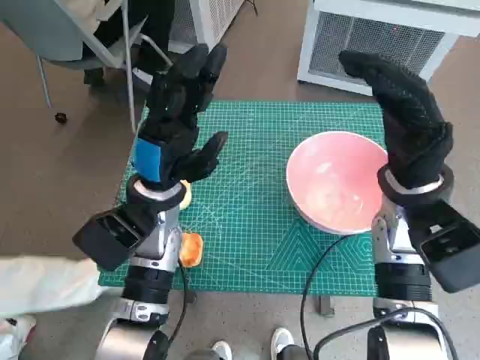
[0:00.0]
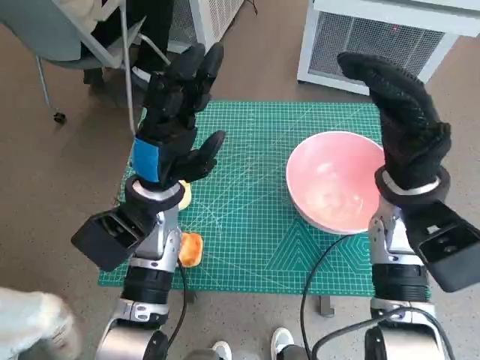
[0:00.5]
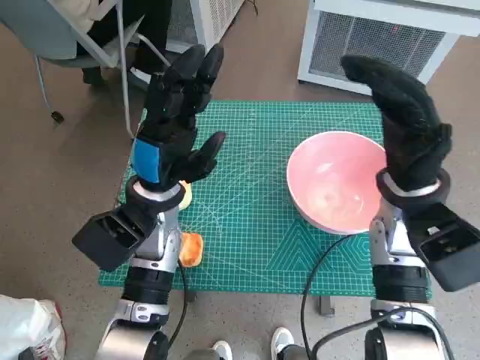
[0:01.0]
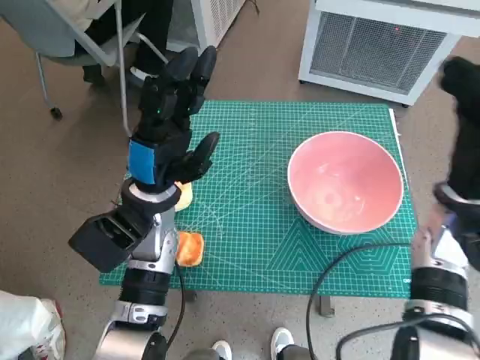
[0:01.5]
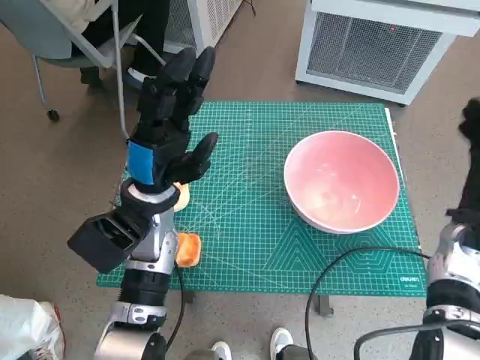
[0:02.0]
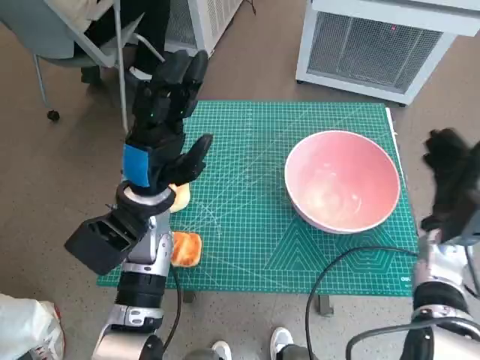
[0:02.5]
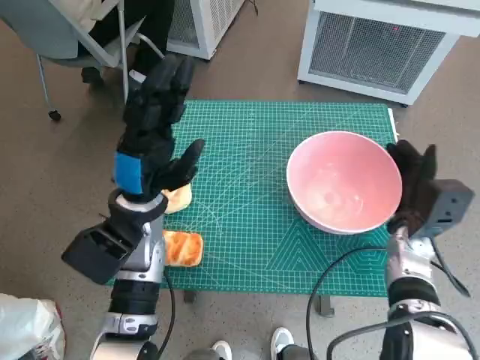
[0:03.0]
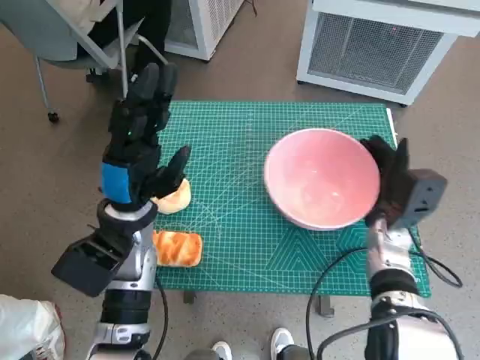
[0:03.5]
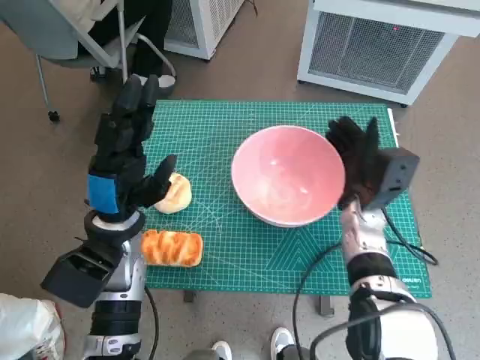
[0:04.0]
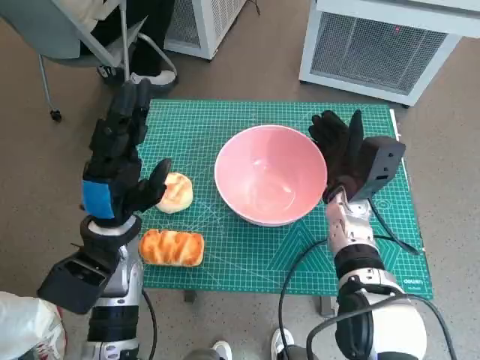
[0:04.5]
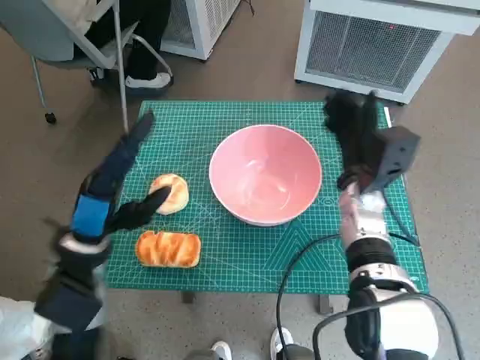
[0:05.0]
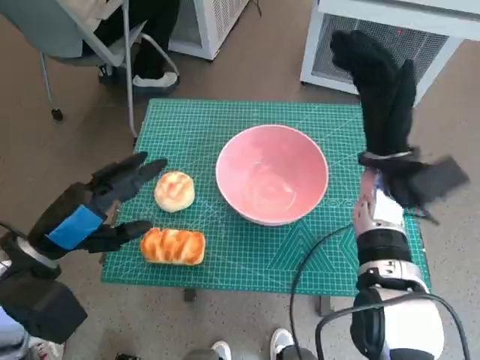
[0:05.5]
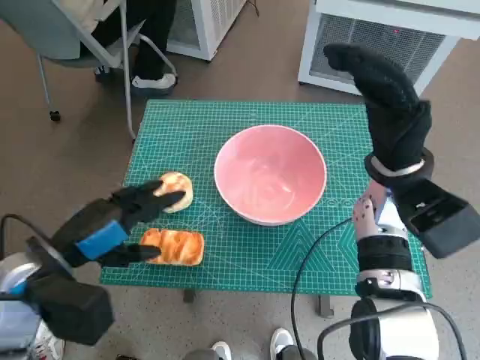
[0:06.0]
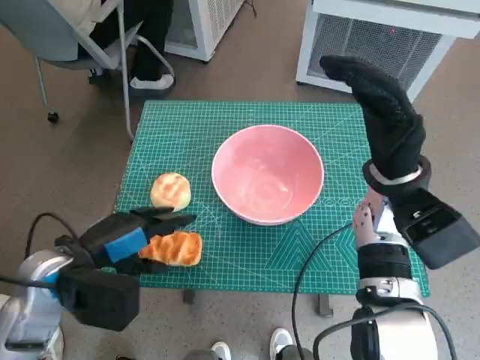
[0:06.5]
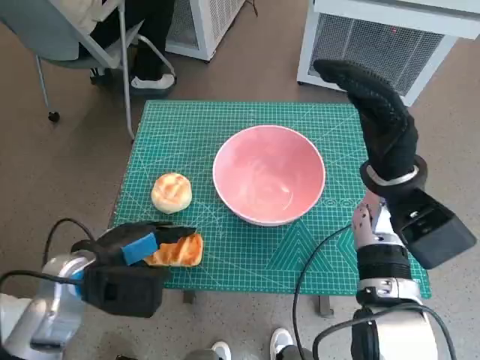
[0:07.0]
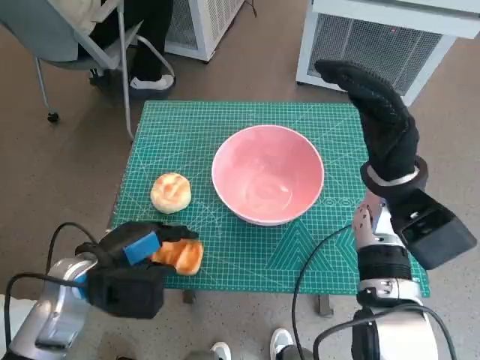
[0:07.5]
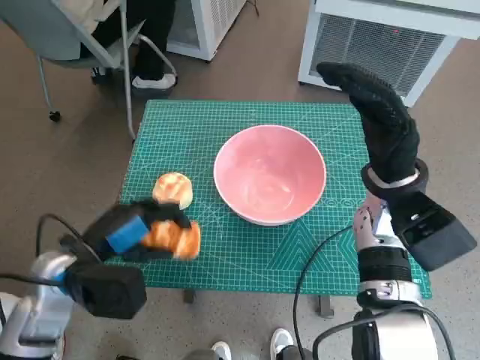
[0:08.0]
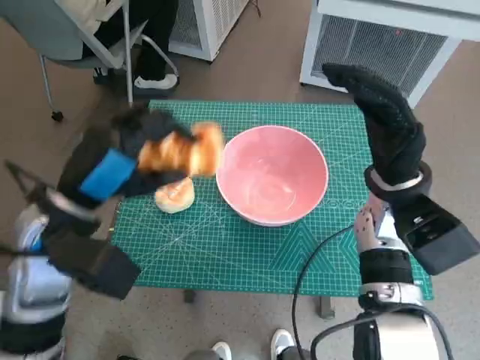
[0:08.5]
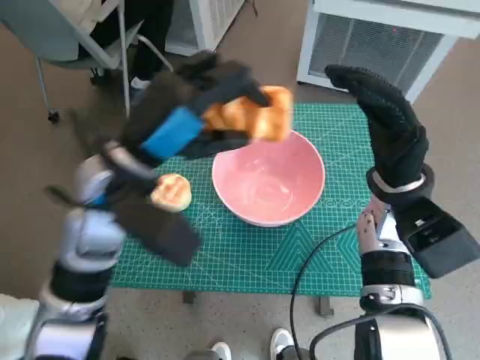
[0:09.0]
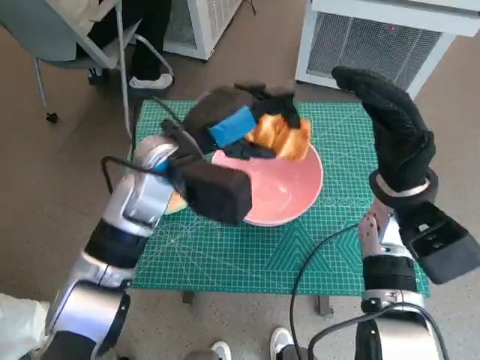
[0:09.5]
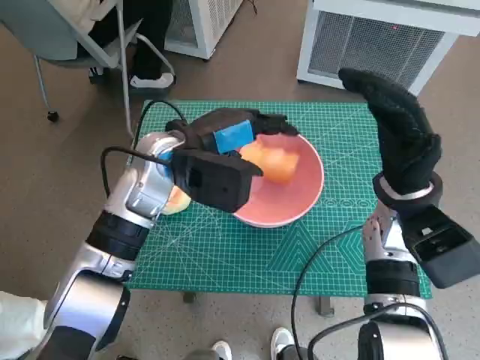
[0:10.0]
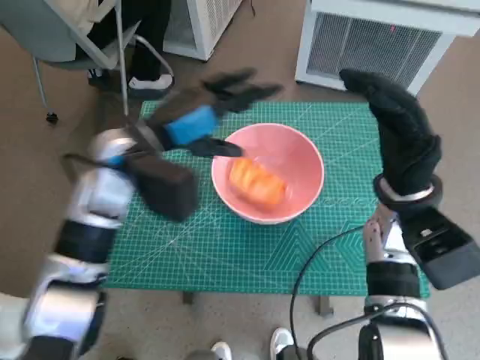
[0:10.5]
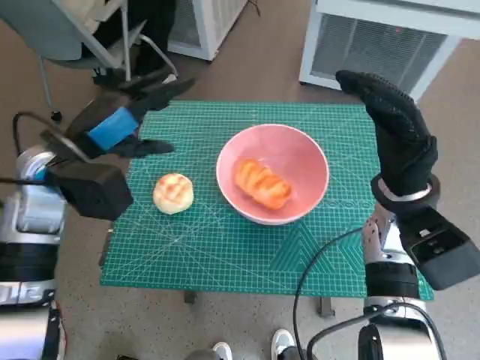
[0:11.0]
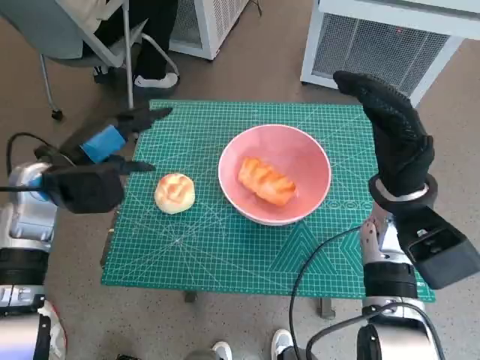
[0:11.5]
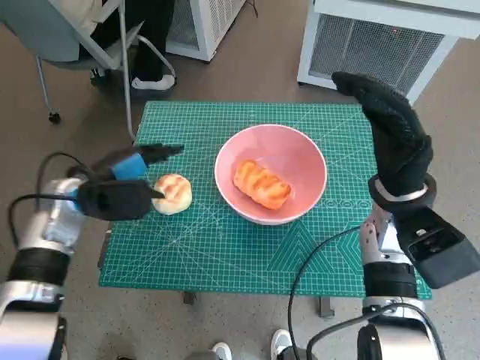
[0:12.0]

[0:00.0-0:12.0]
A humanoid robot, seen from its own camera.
Task of the whole recording: Push the bowl to the center of the table and put the bread into the bowl.
Step, 0:00.0 to 0:04.5: Move the pink bowl to the center of table with right hand.
Step, 0:05.0 to 0:07.5: Grasp the long bread with left hand.
Step, 0:08.0 to 0:10.0: Place the long bread in pink bowl with left hand.
0:02.0 to 0:04.0: The right hand shifts some 10 cm to the left. Meanwhile the left hand ends up roughly 5 cm from where it was.
0:04.0 to 0:06.0: The left hand is displaced to the left and backward by approximately 10 cm. Meanwhile the right hand goes roughly 10 cm upward.
0:08.0 to 0:10.0: The left hand heads forward, to the right and upward, covering about 20 cm.
0:10.0 to 0:12.0: The left hand goes about 15 cm to the left and downward.

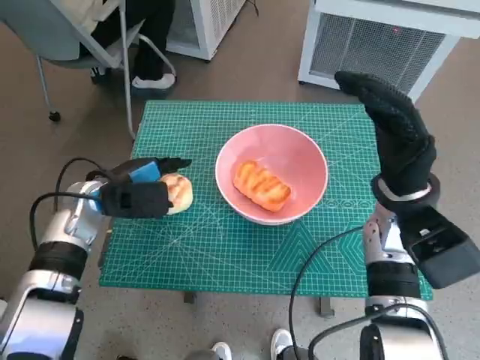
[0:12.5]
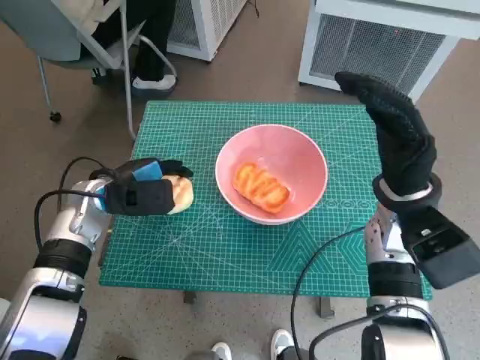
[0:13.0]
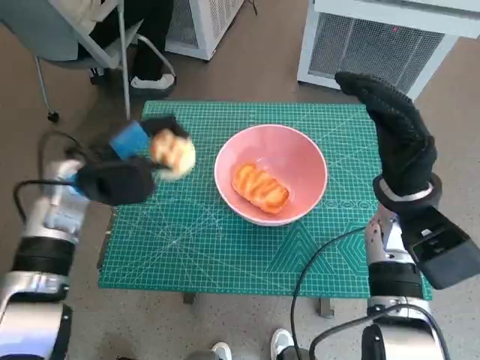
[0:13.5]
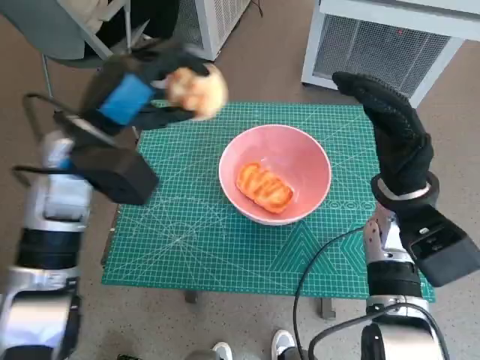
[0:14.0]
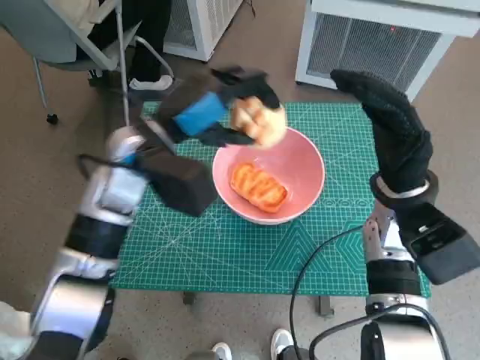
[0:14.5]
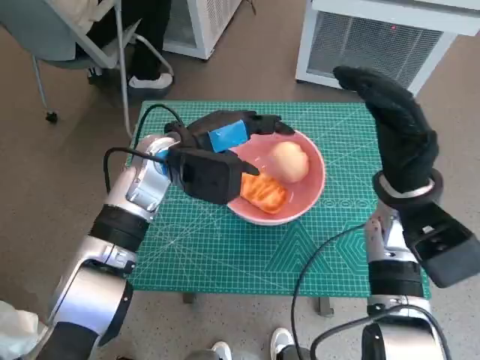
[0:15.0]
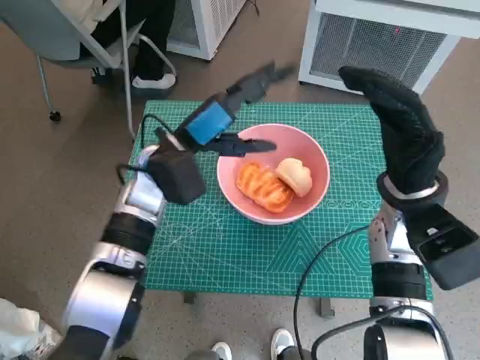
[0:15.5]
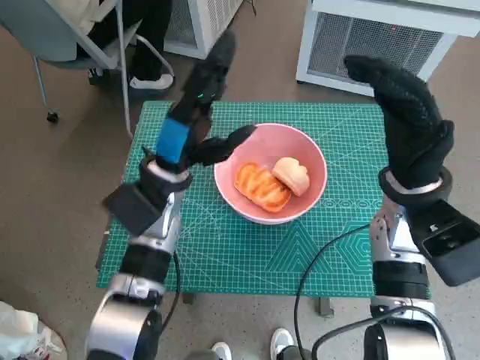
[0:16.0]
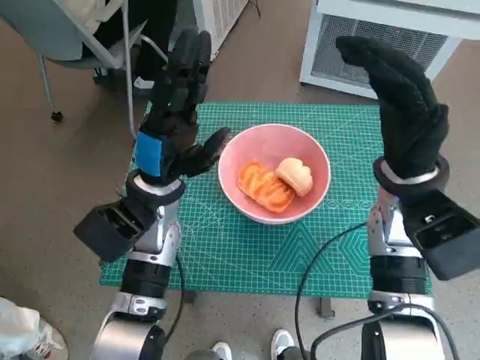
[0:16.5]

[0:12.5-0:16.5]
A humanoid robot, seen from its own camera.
Task of the whole recording: Push the bowl to the center of the table and put the bread into the bowl.
Step, 0:13.5 to 0:15.0: Place the round bread in pink bowl with left hand.
0:12.5 to 0:14.5: The left hand travels upward and to the right by roughly 15 cm.
0:14.5 to 0:16.5: The left hand is displaced downward by approximately 5 cm.

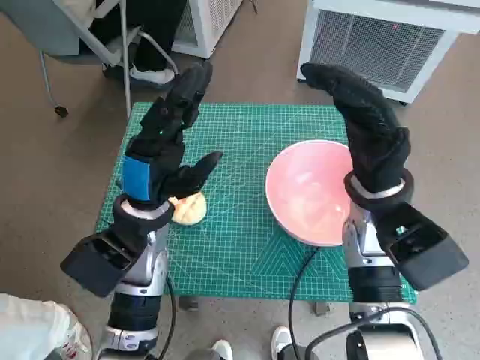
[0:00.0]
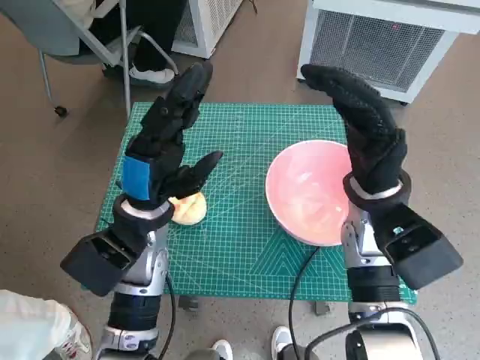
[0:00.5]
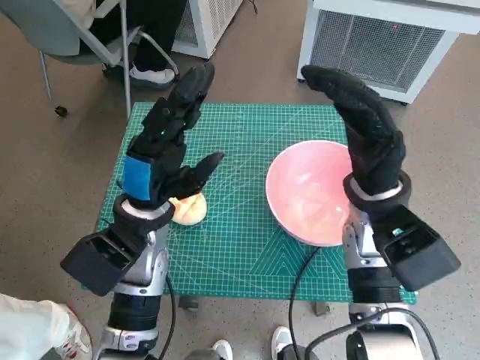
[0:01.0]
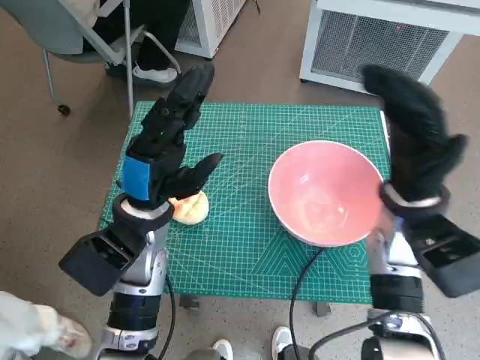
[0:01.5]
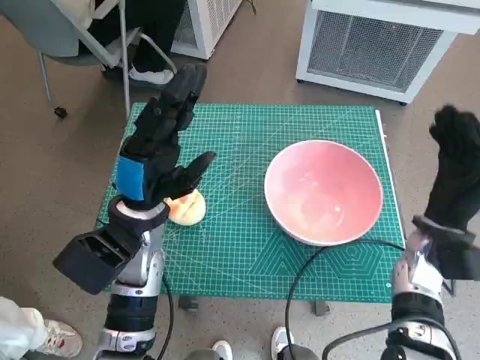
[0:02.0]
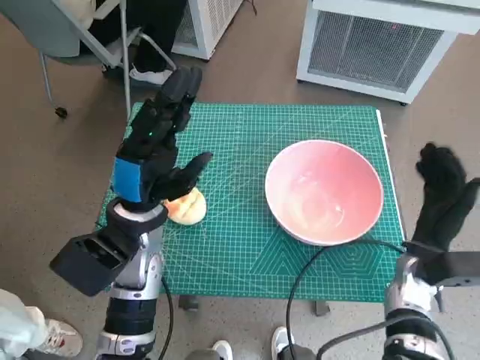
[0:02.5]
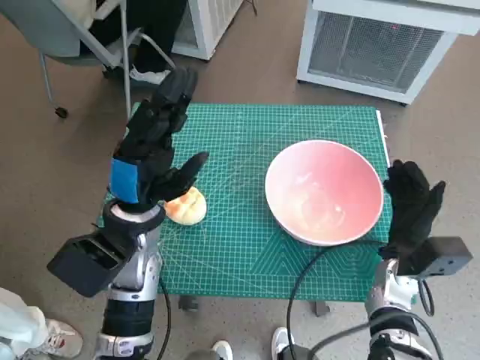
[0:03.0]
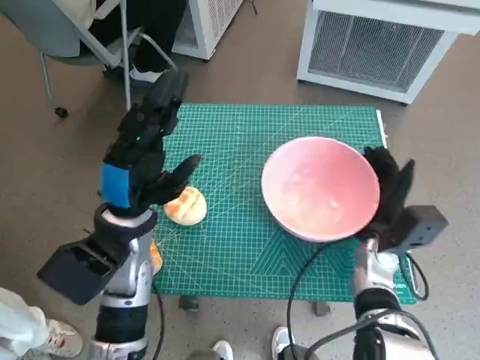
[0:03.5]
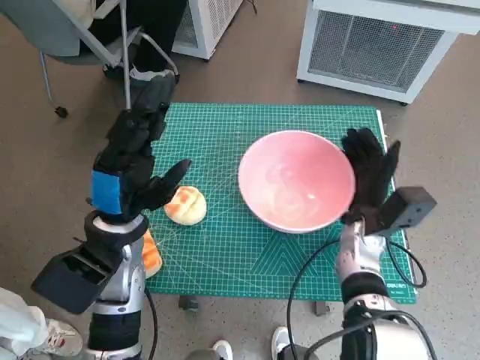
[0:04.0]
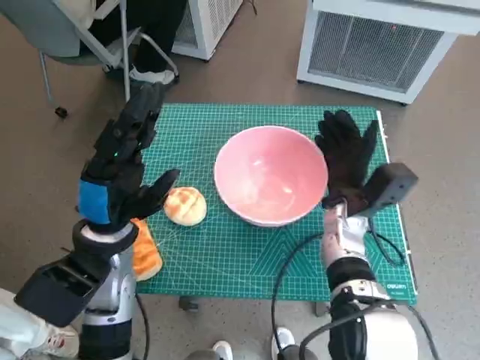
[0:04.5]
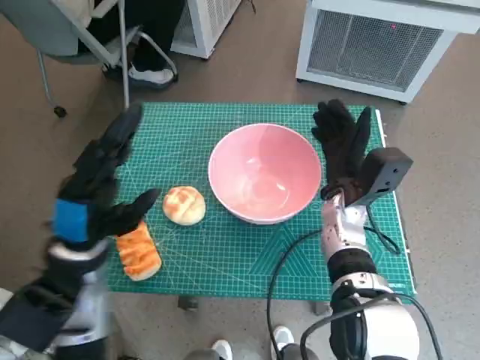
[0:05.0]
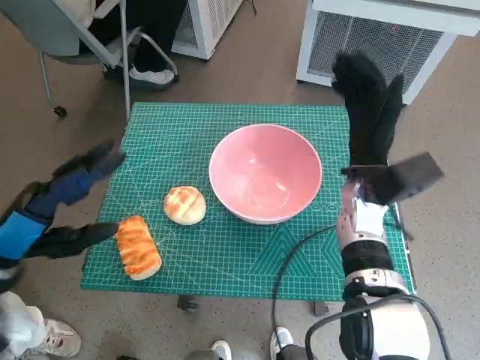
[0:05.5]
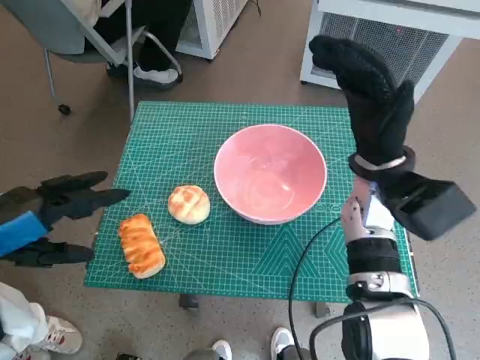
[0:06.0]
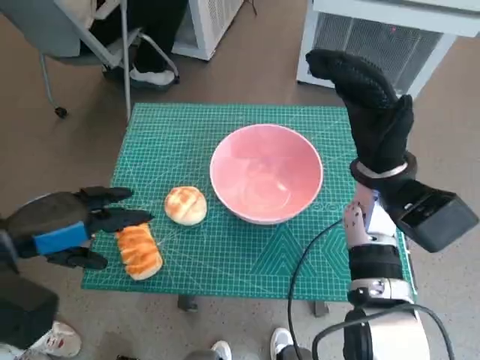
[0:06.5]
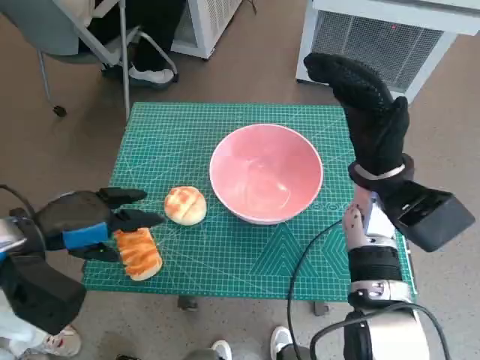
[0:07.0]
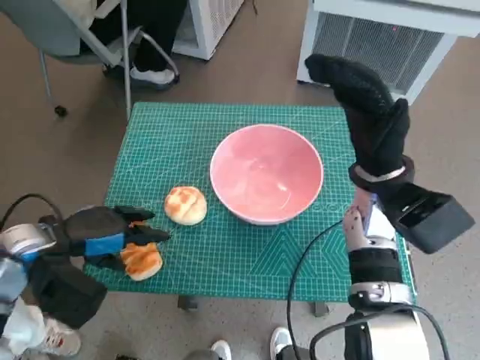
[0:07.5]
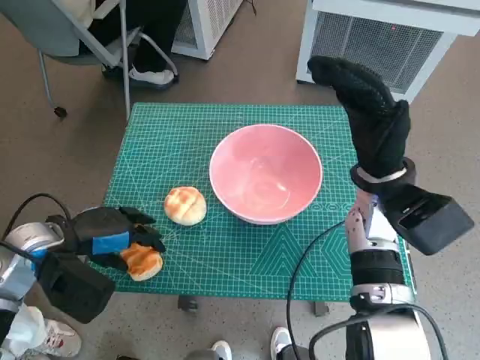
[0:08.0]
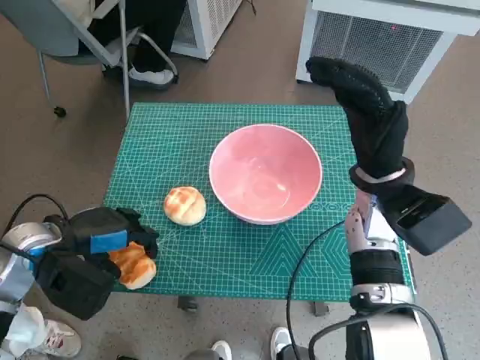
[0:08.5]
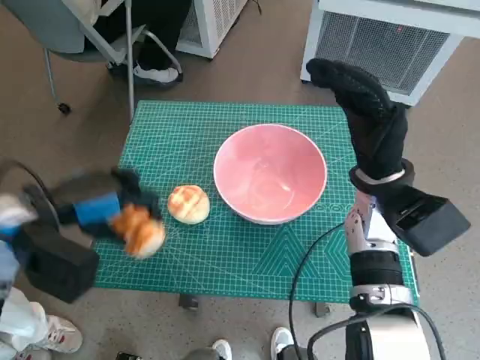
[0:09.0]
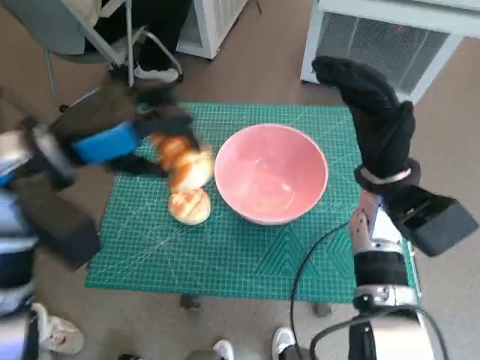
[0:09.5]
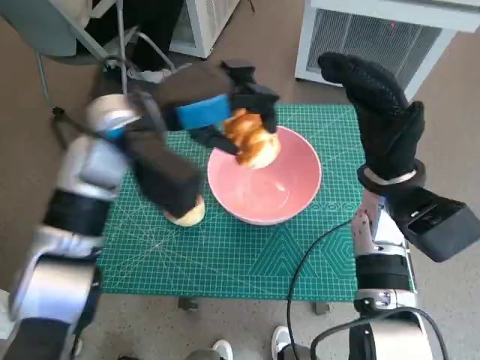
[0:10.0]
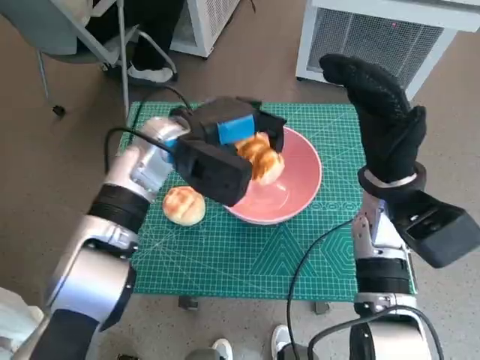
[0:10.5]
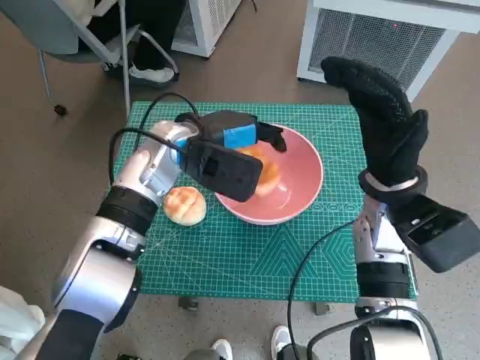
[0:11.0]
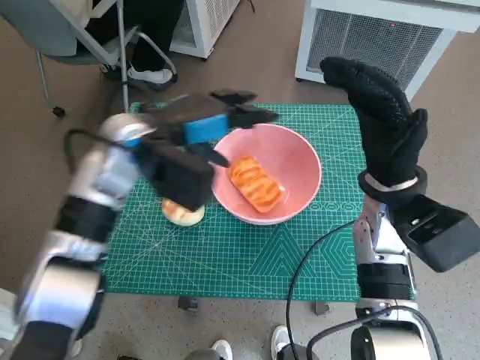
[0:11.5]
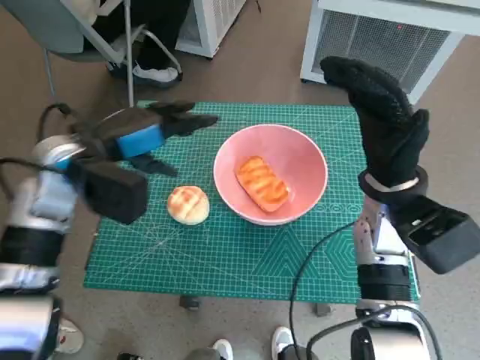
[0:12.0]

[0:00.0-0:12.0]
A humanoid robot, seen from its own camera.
Task of the whole recording: Push the bowl to the center of the table and put the bread into the bowl.
Step, 0:00.0 to 0:05.0: Move the pink bowl to the center of table with right hand.
Step, 0:05.5 to 0:08.0: Grasp the long bread with left hand.
Step, 0:08.5 to 0:11.0: Place the long bread in pink bowl with left hand.
0:02.0 to 0:04.0: The right hand goes roughly 5 cm to the left.
0:04.0 to 0:06.0: The right hand goes about 15 cm upward. Meanwhile the left hand shifts some 15 cm to the left, upward and backward.
0:06.0 to 0:08.0: The left hand shifts approximately 10 cm downward and forward.
0:08.0 to 0:10.0: The left hand travels to the right, upward and forward by about 20 cm.
0:10.0 to 0:12.0: The left hand travels to the left by approximately 5 cm.